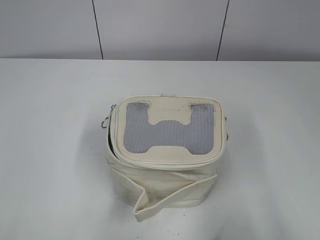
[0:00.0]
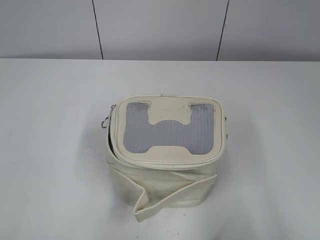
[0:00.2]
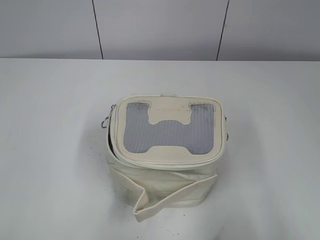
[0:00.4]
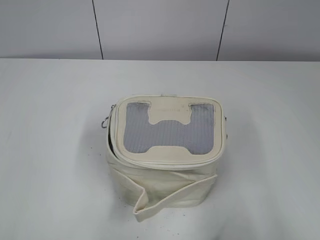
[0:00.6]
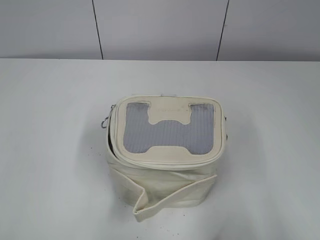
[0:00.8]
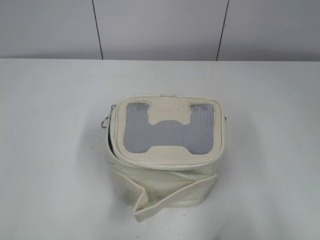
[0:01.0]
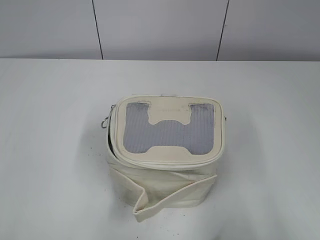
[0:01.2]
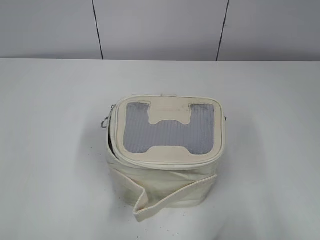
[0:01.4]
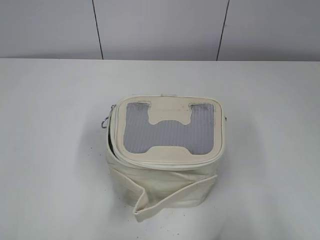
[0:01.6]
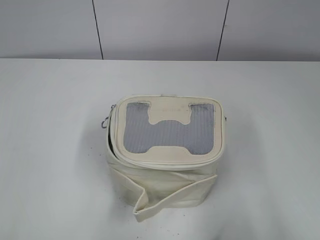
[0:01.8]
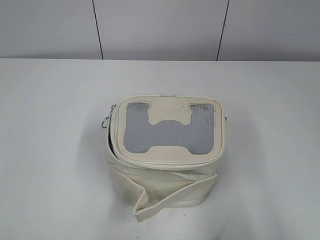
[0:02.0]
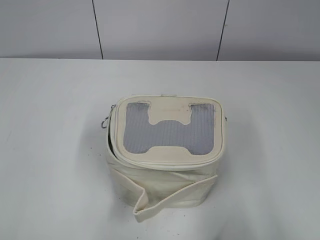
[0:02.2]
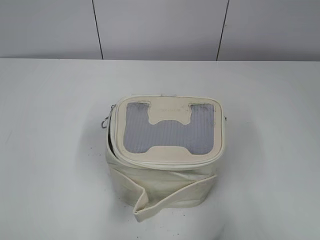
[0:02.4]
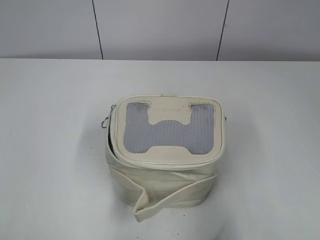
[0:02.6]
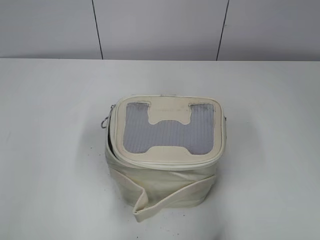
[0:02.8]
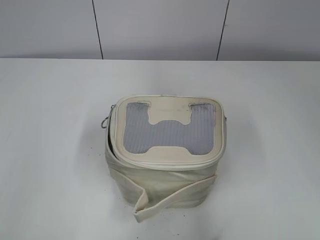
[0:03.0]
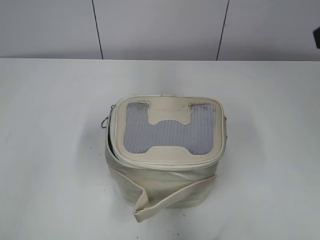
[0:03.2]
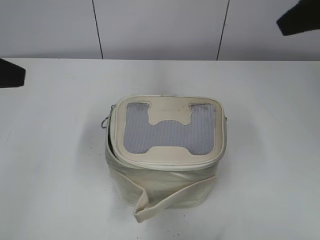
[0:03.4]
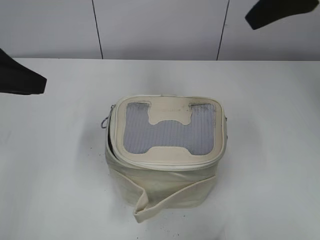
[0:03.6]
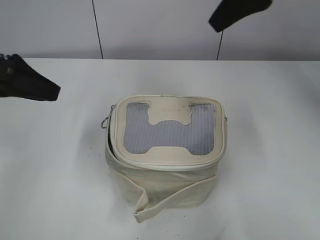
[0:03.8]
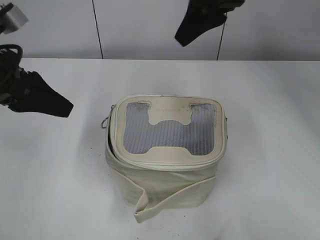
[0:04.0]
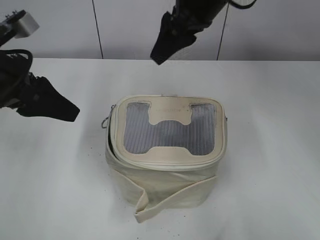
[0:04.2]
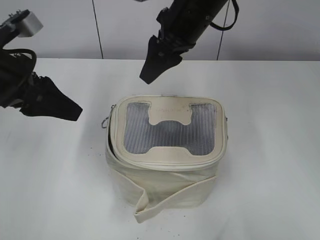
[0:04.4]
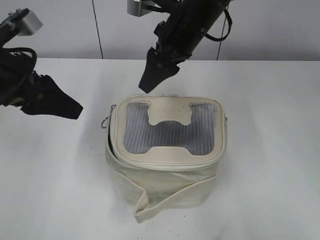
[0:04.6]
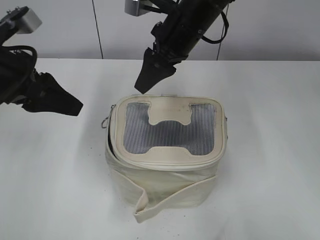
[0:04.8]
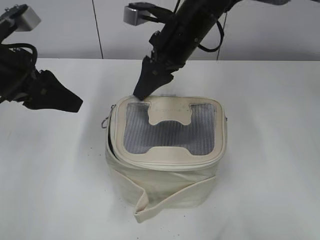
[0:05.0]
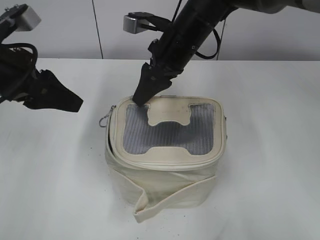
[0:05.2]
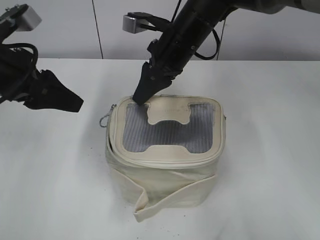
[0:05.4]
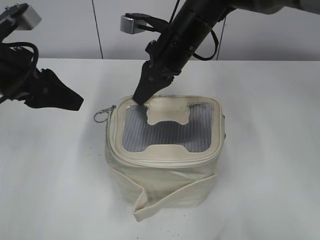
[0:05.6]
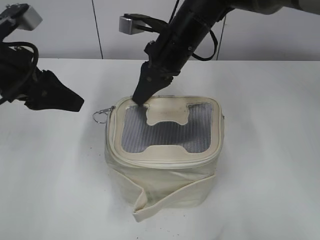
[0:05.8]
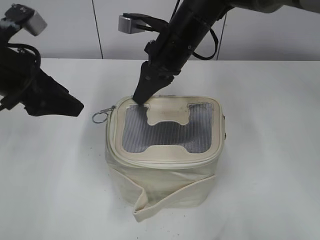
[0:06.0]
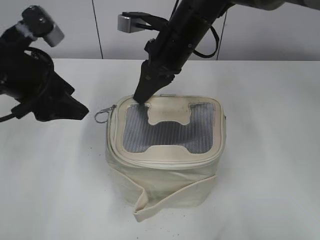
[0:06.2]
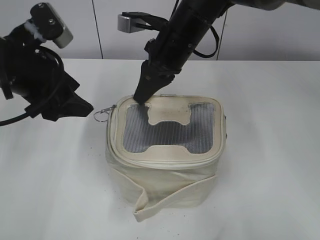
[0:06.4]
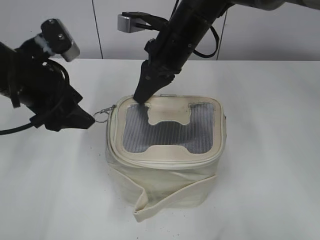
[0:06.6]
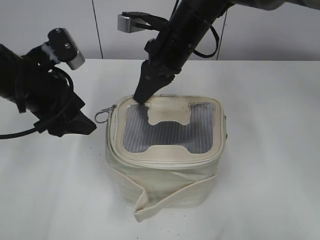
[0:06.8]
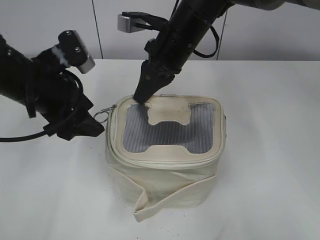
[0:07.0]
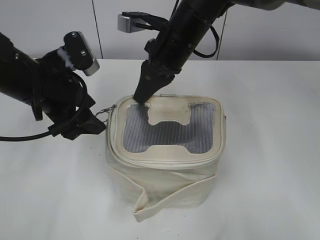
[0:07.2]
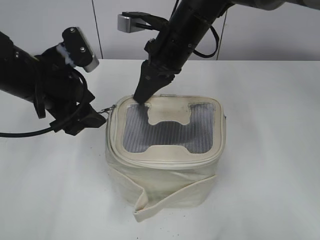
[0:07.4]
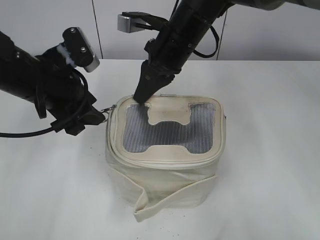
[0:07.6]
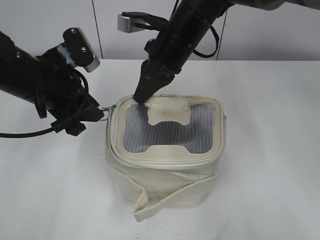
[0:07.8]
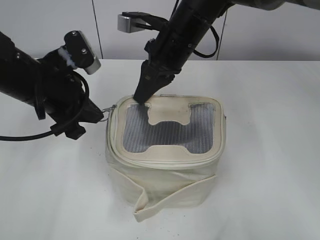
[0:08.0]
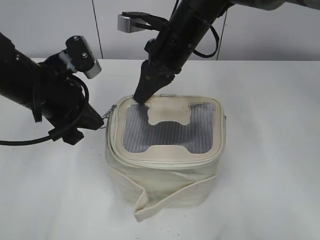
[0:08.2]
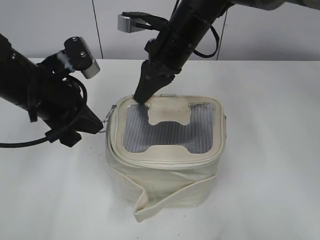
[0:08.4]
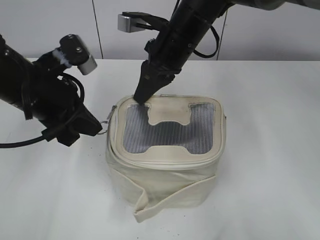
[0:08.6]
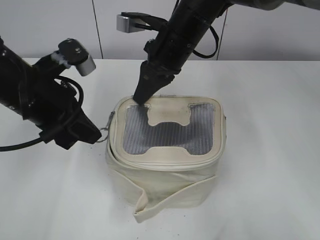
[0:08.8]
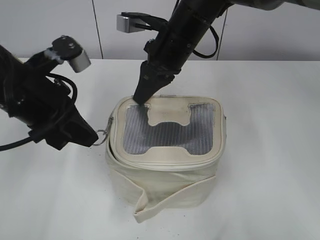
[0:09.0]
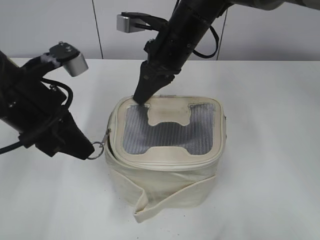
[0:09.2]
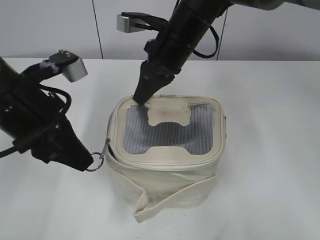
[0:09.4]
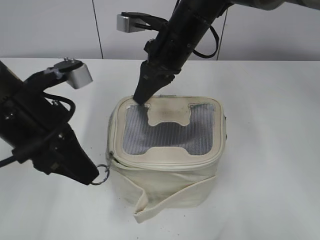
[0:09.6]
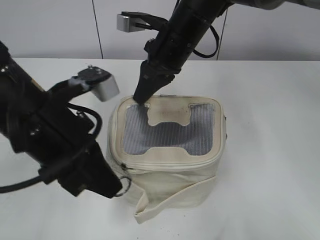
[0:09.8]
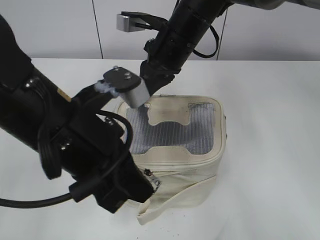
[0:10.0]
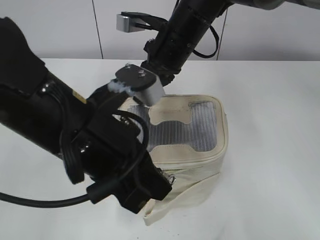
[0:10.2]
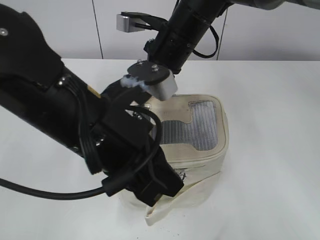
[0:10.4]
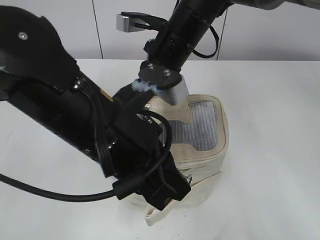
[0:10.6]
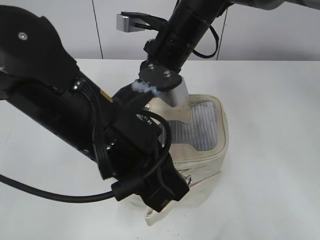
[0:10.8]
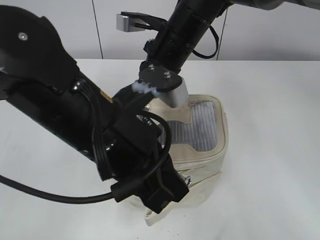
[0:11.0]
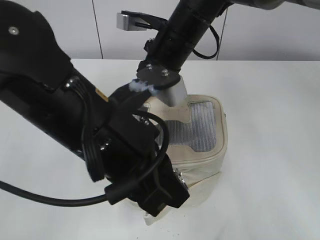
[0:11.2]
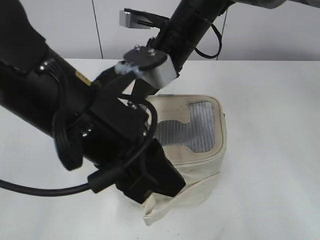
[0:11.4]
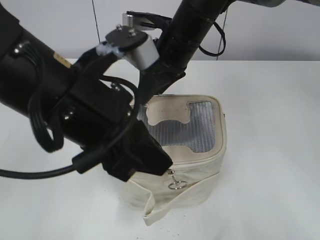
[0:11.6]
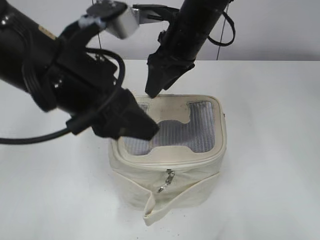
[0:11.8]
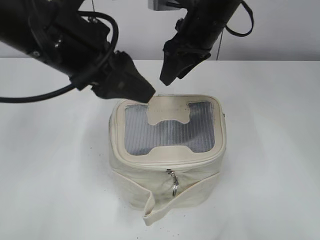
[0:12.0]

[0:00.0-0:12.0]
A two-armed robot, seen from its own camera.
Step, 0.0 to 11.0 s: Zip up the bag with your left hand.
Step, 11.2 to 12.0 s: Hold the bag with your right hand.
1.6 to 3.0 s: The right gripper moves forward and upward, some 15 cm, while the left gripper travels forward by about 10 cm.
3.0 to 4.4 s: The right gripper moves forward and to the left, approximately 35 cm. The left gripper heads forward, downward and to the right, covering approximately 20 cm.
4.4 to 6.0 s: The right gripper goes roughly 5 cm downward, and closes up.
6.0 to 7.6 s: The left gripper changes place by some 5 cm.
7.6 to 9.0 s: The left gripper closes up.
9.0 to 10.4 s: The left gripper moves to the right and backward, some 10 cm.
10.4 to 12.0 s: The right gripper changes place by about 5 cm, and opens up, while the left gripper travels forward and upward by approximately 10 cm, and opens.

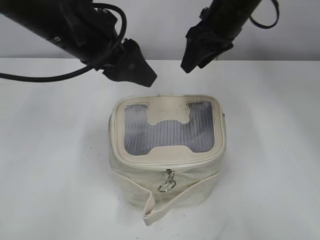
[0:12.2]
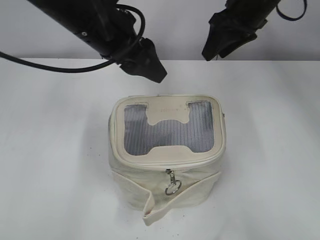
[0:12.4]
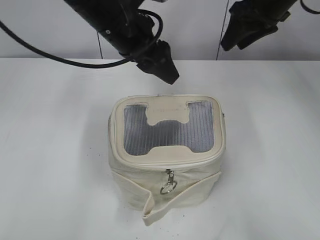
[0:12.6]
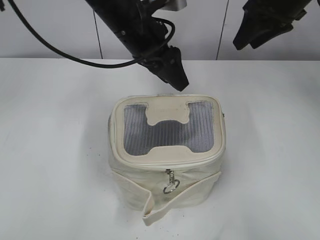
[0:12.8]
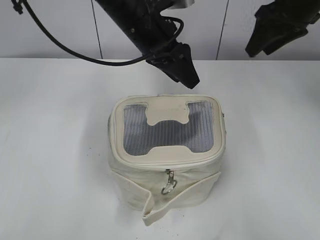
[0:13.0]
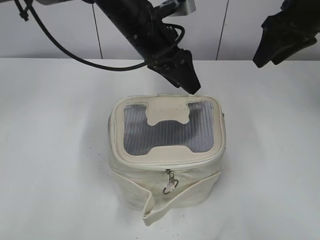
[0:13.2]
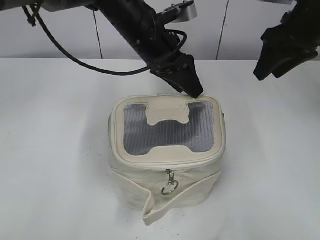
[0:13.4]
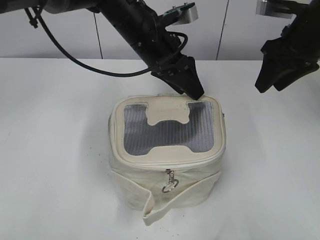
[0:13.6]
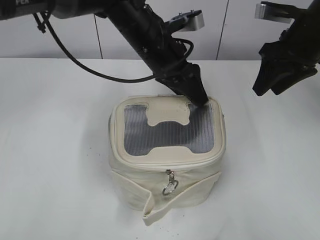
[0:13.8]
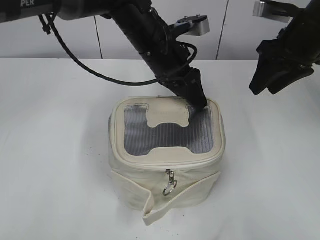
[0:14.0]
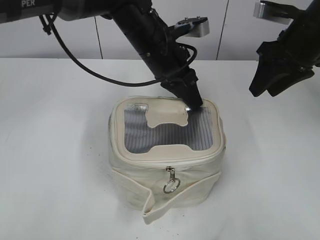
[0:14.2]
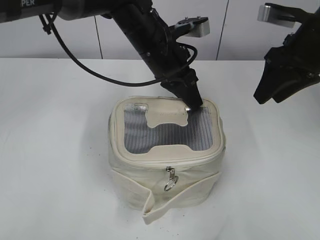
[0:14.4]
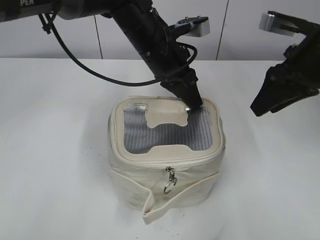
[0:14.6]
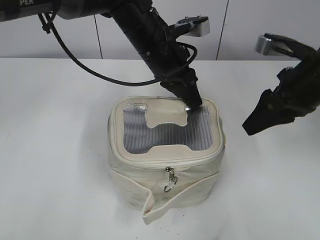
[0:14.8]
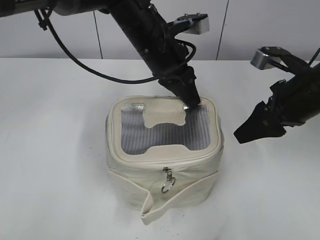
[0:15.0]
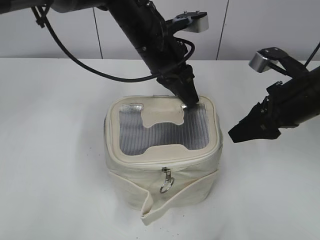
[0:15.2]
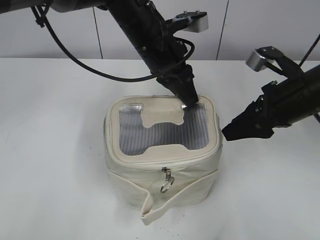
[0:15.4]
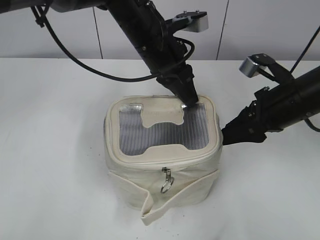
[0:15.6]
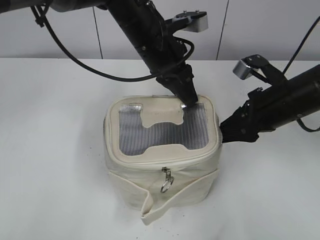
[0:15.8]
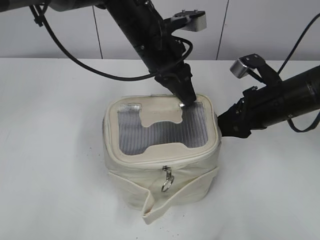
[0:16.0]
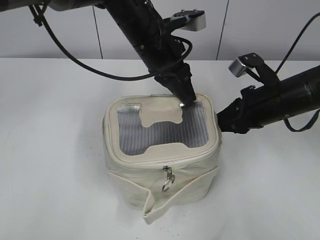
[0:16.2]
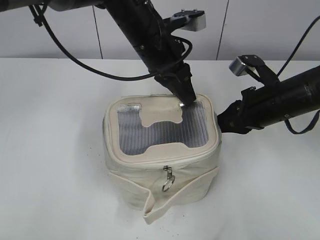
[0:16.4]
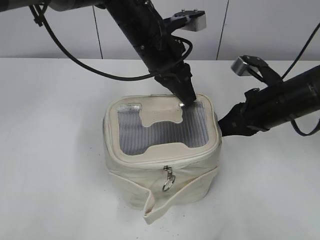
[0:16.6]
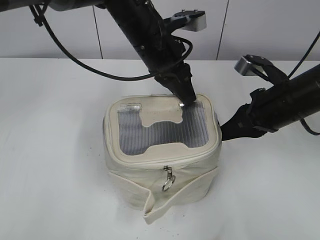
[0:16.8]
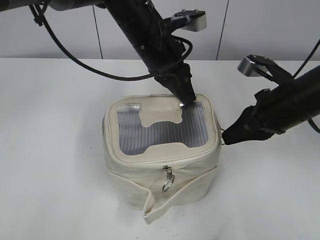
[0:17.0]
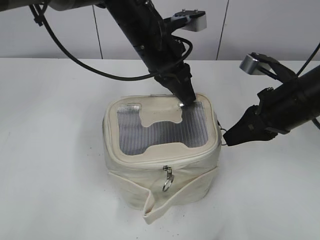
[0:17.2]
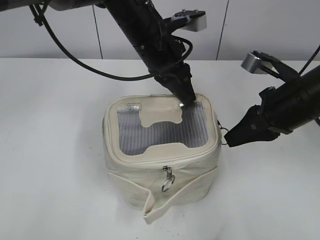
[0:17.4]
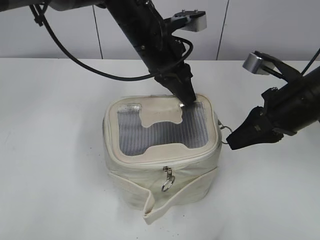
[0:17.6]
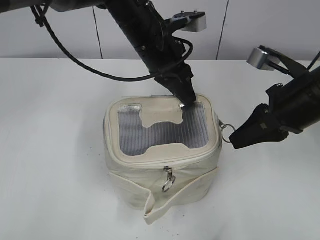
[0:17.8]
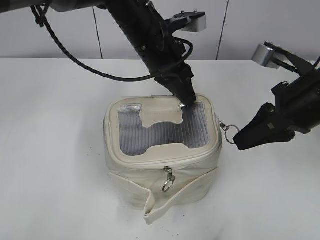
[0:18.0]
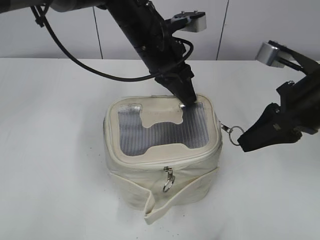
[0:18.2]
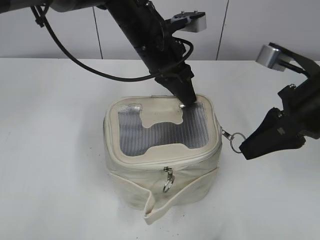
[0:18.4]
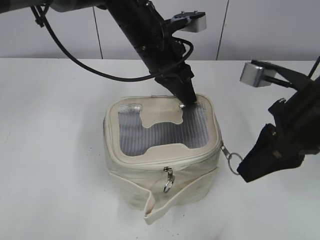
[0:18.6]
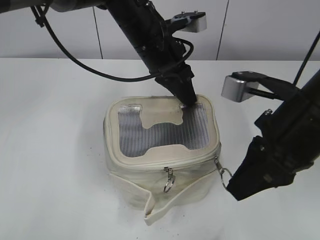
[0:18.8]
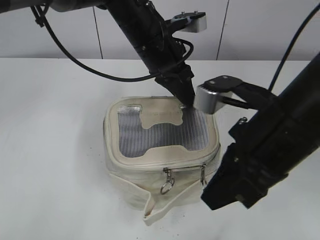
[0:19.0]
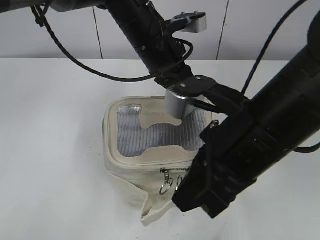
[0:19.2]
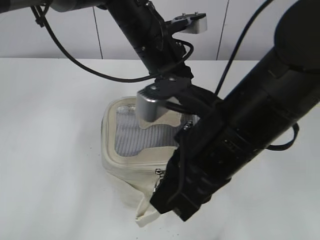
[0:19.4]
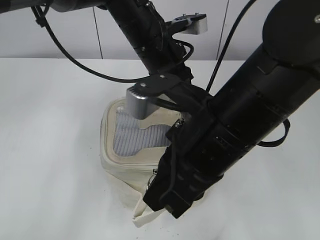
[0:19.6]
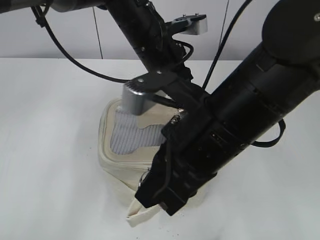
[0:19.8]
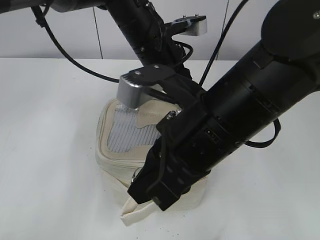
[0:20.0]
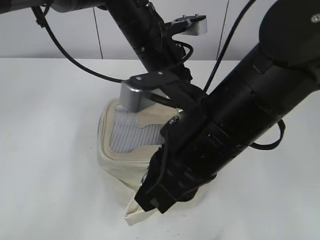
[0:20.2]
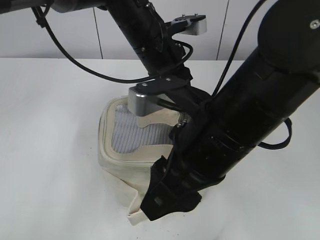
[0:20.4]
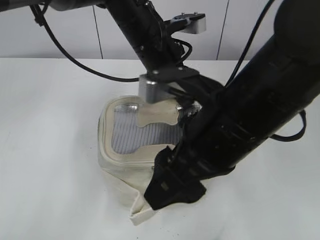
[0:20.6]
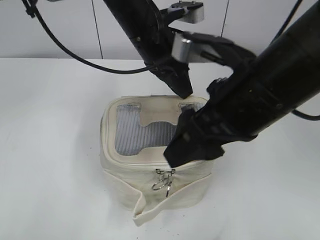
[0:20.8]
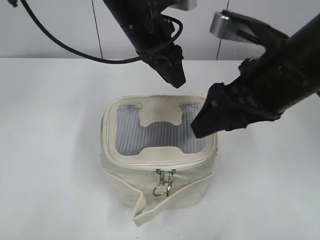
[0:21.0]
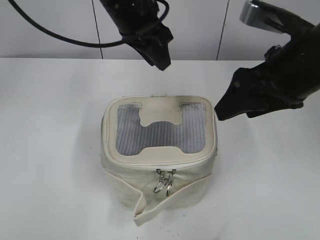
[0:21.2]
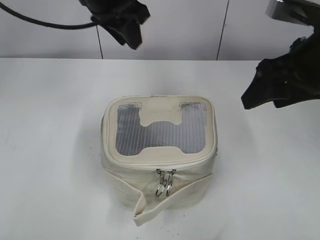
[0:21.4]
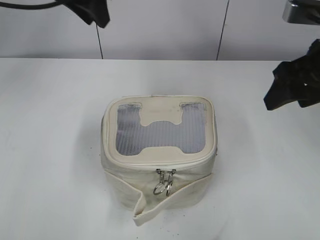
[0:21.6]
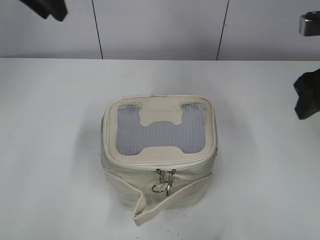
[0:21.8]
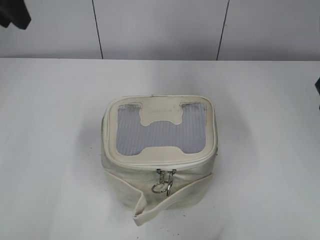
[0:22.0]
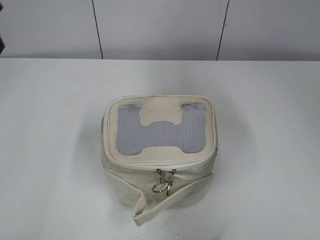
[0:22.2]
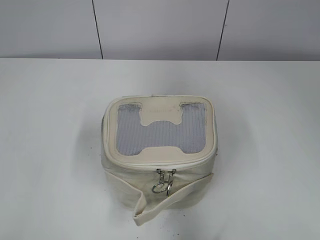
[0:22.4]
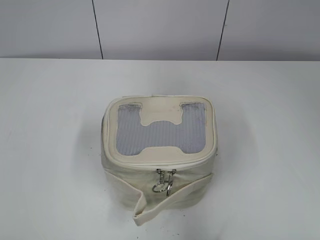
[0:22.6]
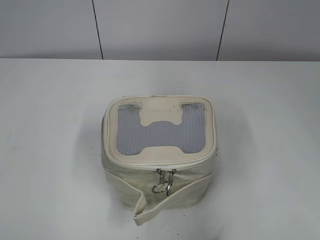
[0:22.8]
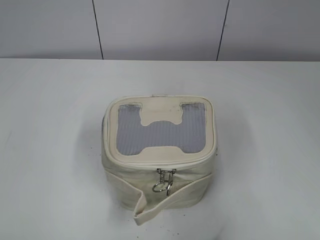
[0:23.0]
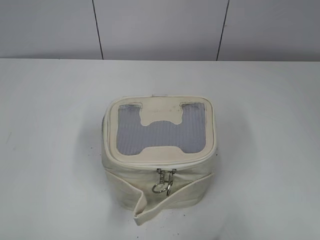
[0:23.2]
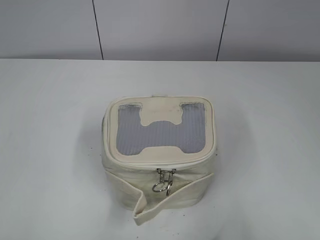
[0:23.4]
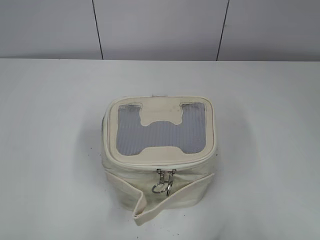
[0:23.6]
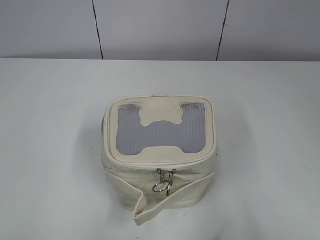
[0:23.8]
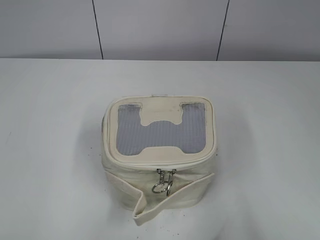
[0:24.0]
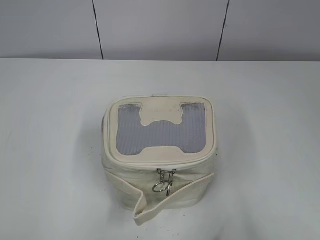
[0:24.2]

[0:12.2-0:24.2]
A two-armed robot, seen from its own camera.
Step, 12.2 to 20.2 s: Zip up the bag with your right hand.
Step, 20.4 to 21.0 s: Hold the bag with your left hand.
12.2 to 13.8 s: The left gripper goes about 15 cm to the right, forward and downward, while the right gripper heads to the right, covering about 10 cm.
13.8 to 15.2 s: The right gripper is displaced backward and downward by about 10 cm; the left gripper closes.
15.2 to 16.6 s: The right gripper closes its fingers.
16.6 to 18.2 s: The right gripper is displaced upward and backward by some 10 cm.
18.2 to 19.8 s: The right gripper heads to the left and backward, covering some 15 cm.
19.8 to 21.2 s: The left gripper goes about 5 cm upward, and opens its fingers. The right gripper heads to the right and forward, covering roughly 15 cm, and opens.
21.2 to 22.6 s: The left gripper shifts approximately 30 cm to the left and backward, while the right gripper moves to the right, backward and upward, approximately 15 cm.
22.6 to 24.2 s: Both grippers move backward and downward, roughly 15 cm.
